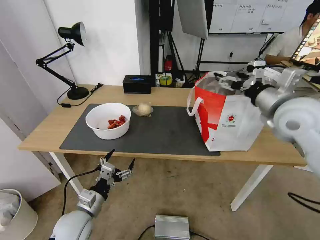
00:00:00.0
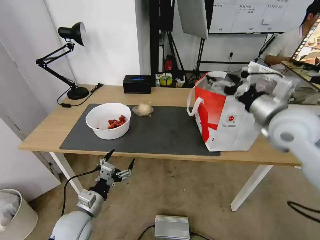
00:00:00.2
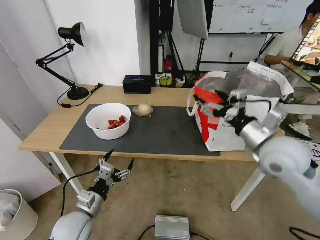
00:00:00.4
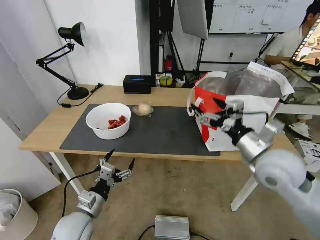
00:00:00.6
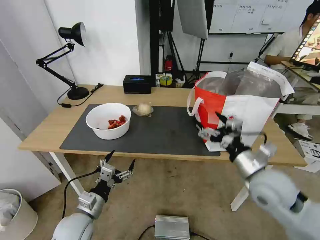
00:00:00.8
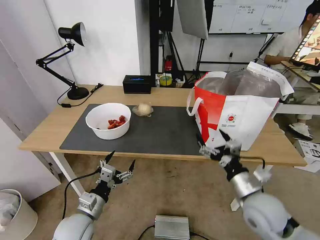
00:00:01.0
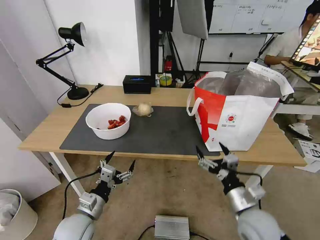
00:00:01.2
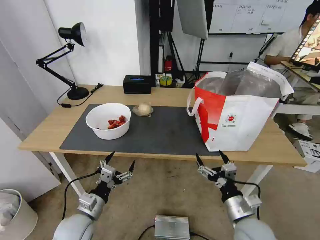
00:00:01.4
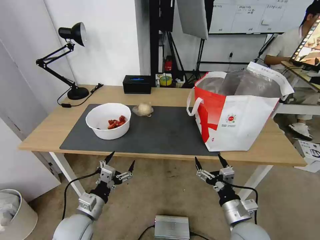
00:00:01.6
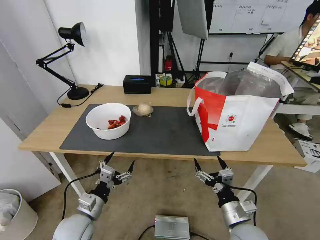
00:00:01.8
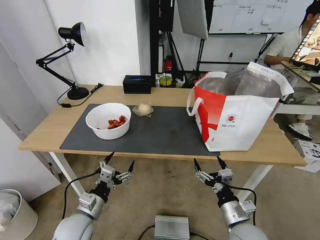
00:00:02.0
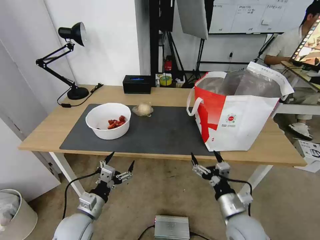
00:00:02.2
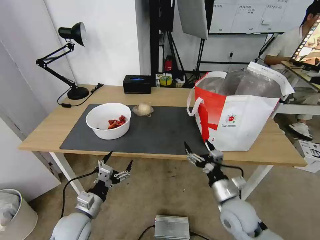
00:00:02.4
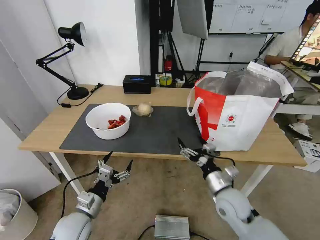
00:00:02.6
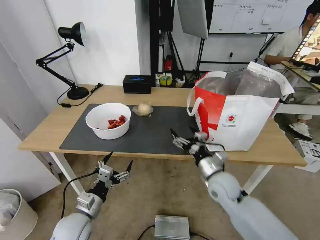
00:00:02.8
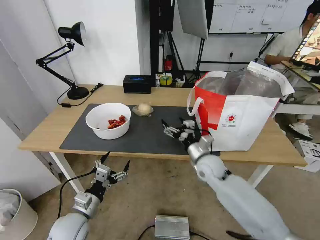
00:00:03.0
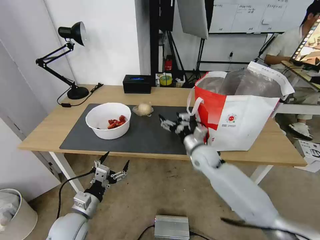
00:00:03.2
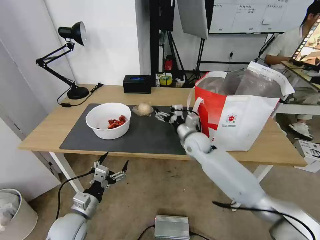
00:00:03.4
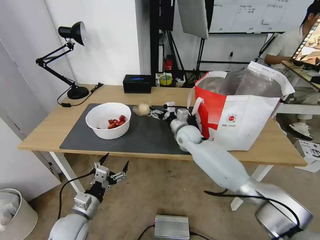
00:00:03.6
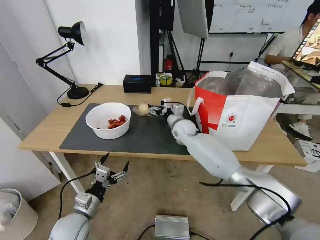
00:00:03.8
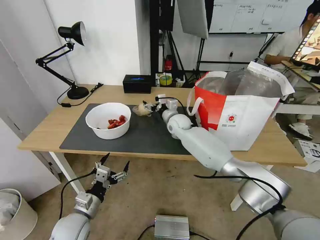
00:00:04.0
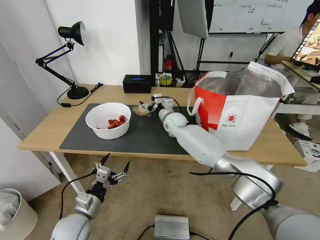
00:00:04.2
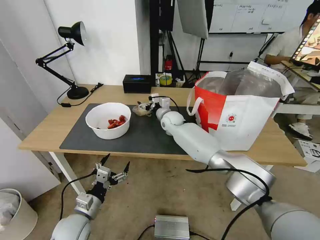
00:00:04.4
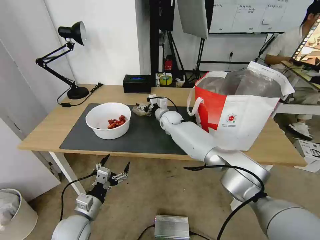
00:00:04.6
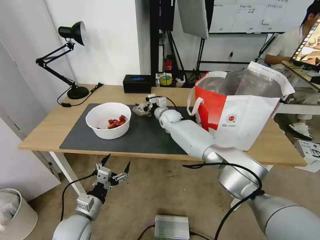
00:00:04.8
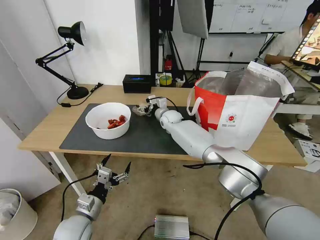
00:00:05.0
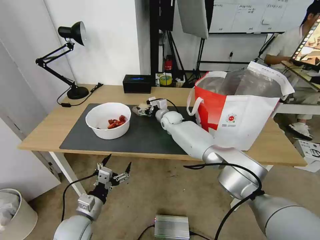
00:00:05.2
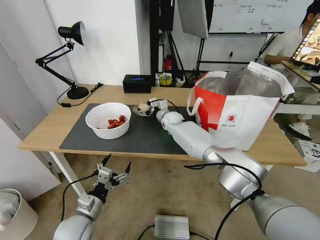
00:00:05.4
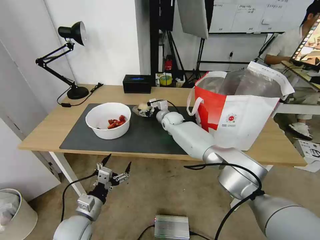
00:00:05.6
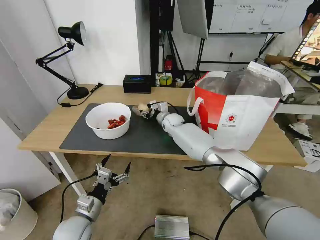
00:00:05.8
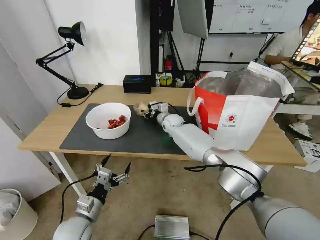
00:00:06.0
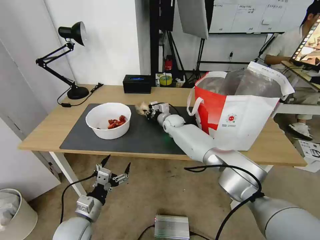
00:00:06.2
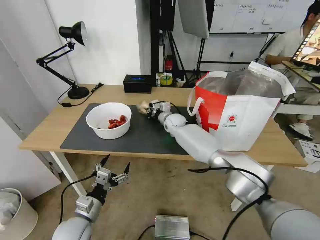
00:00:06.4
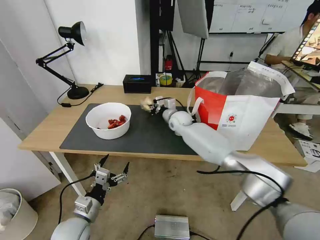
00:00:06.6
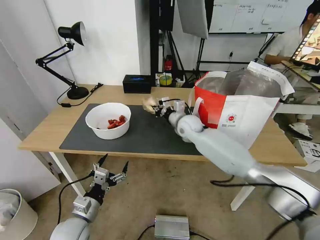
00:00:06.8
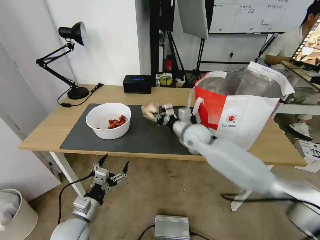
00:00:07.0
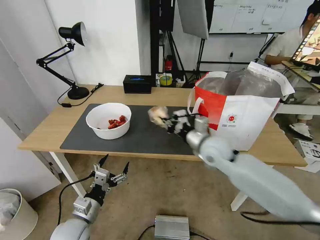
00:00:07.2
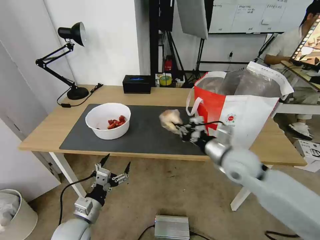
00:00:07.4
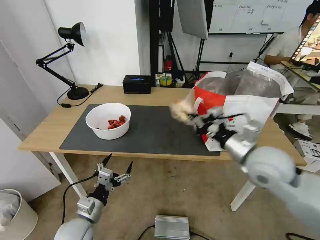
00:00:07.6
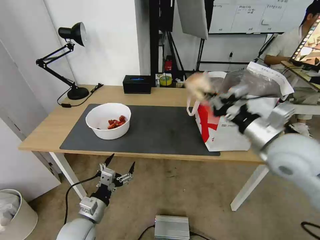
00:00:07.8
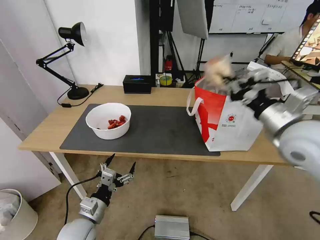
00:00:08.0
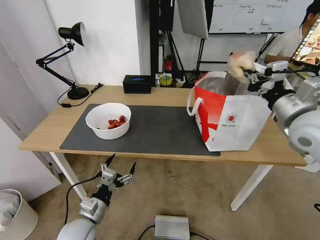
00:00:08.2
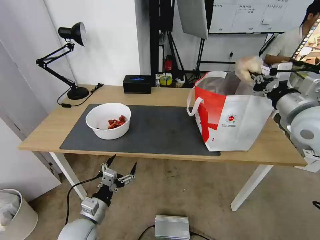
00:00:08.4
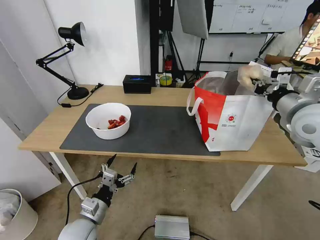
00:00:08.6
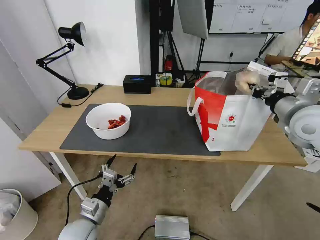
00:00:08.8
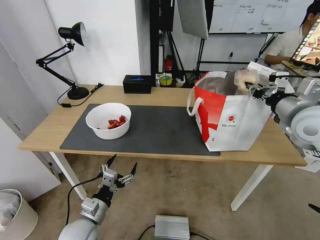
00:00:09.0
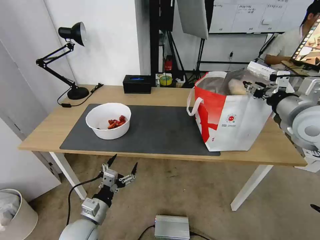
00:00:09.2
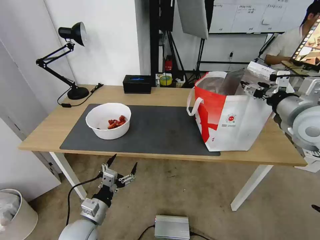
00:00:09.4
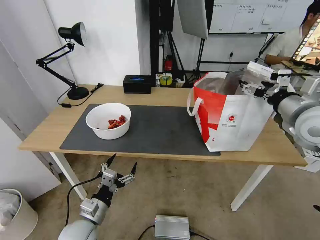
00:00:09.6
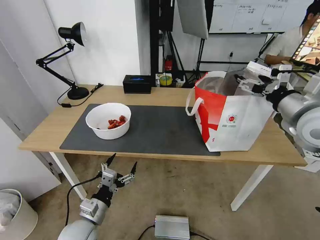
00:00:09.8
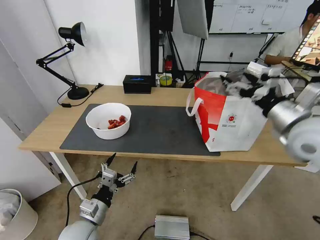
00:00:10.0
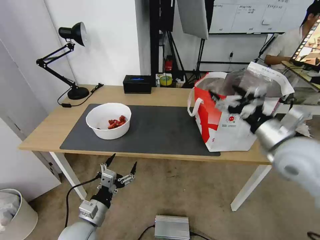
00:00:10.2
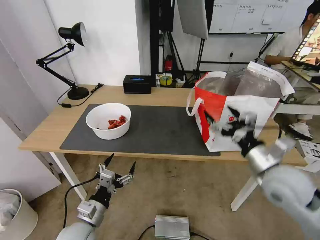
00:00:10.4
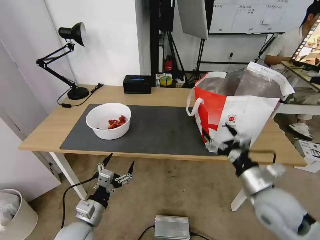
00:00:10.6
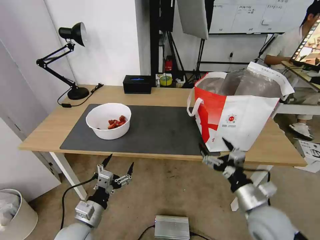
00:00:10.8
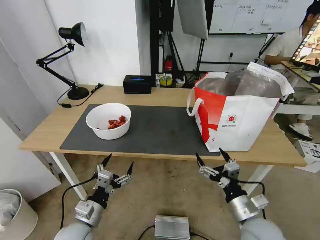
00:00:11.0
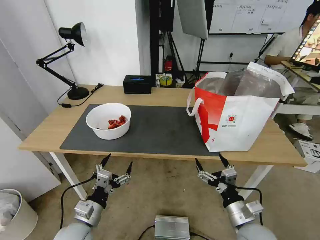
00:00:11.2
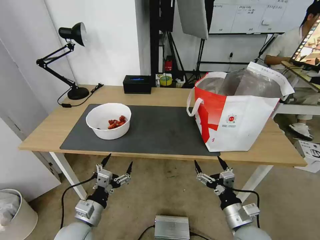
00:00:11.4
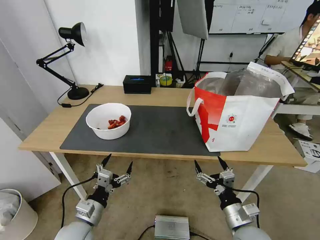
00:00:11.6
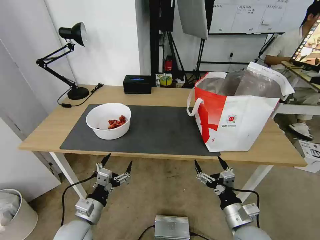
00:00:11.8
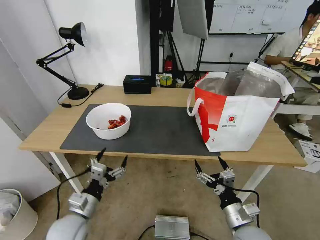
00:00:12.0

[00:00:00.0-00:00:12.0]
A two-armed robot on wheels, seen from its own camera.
Task of the whole recording: Pick up the trash from the table and place it into the takeout bag.
00:00:00.0 to 00:00:01.6: The right gripper travels downward and backward by roughly 35 cm.
00:00:01.6 to 00:00:03.0: The right gripper is displaced forward by roughly 20 cm.
00:00:03.0 to 00:00:04.4: The right gripper heads forward and to the left, covering approximately 25 cm.
00:00:04.4 to 00:00:06.0: The right gripper closes its fingers.
00:00:06.0 to 00:00:07.6: The right gripper goes about 40 cm backward, to the right and upward, and closes its fingers.
00:00:07.6 to 00:00:09.0: The right gripper heads to the right, upward and forward, covering approximately 15 cm.
00:00:09.0 to 00:00:10.4: The right gripper is displaced downward, backward and to the left by some 15 cm, and opens.
00:00:10.4 to 00:00:12.0: The right gripper is displaced downward and backward by some 20 cm.

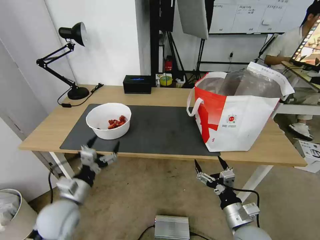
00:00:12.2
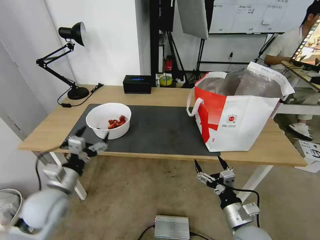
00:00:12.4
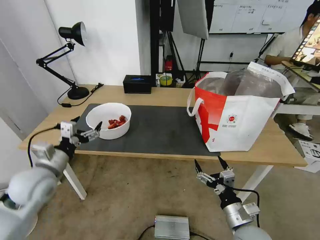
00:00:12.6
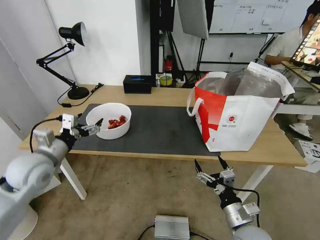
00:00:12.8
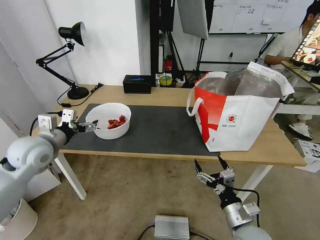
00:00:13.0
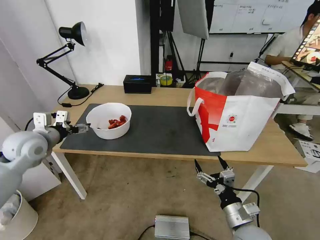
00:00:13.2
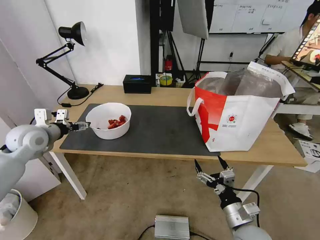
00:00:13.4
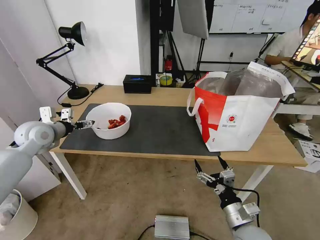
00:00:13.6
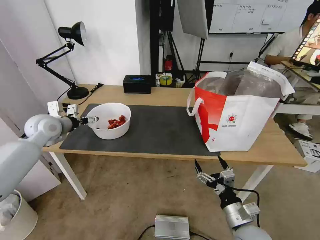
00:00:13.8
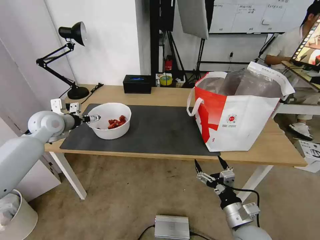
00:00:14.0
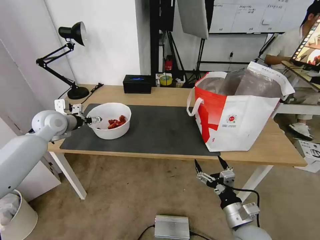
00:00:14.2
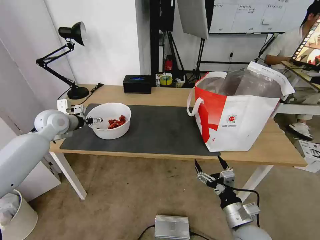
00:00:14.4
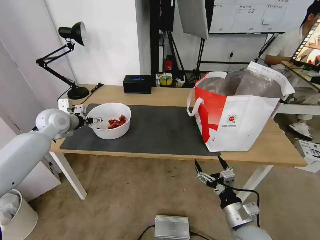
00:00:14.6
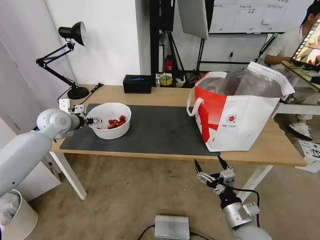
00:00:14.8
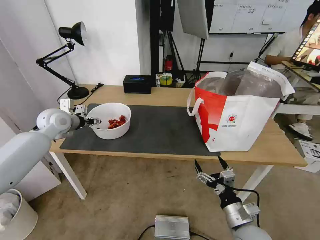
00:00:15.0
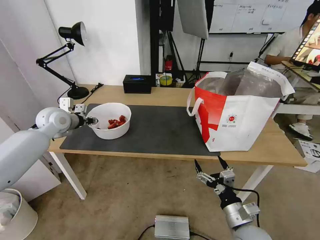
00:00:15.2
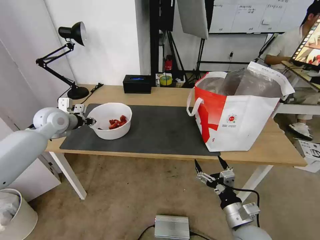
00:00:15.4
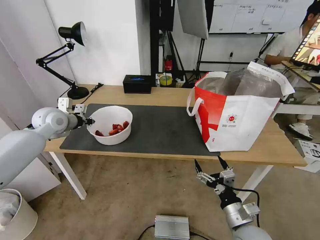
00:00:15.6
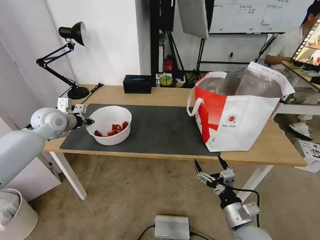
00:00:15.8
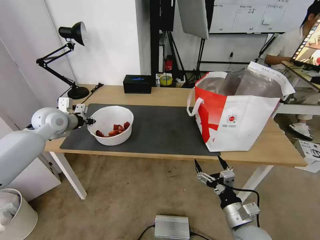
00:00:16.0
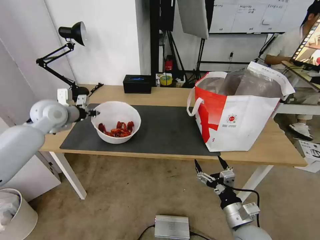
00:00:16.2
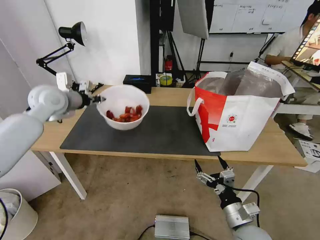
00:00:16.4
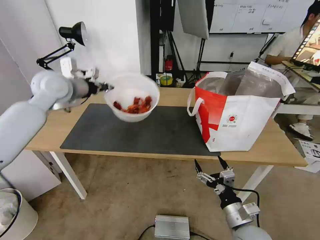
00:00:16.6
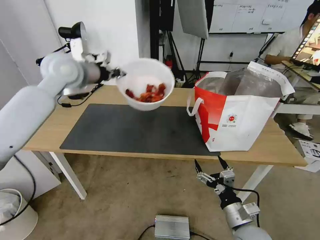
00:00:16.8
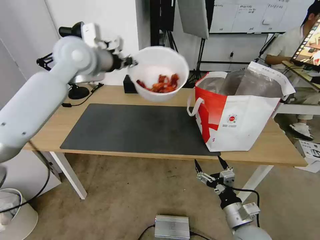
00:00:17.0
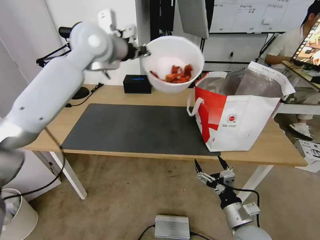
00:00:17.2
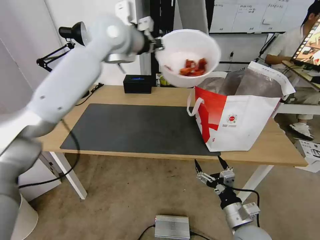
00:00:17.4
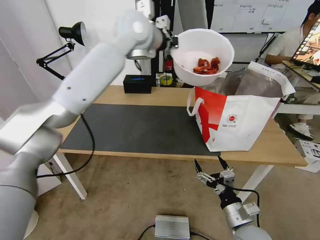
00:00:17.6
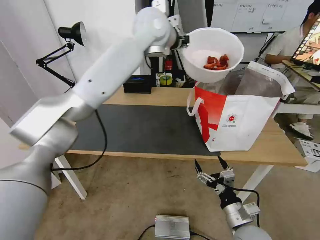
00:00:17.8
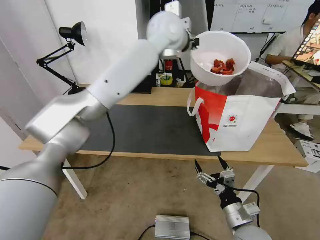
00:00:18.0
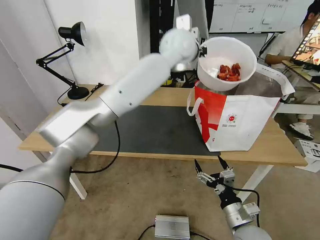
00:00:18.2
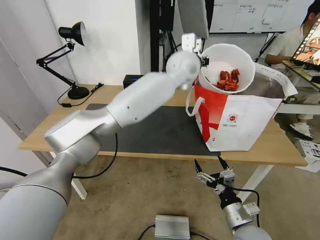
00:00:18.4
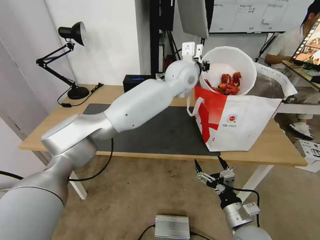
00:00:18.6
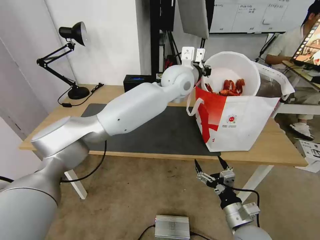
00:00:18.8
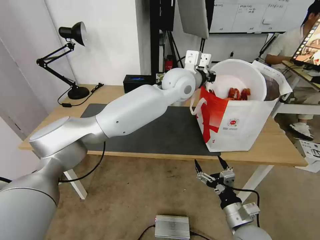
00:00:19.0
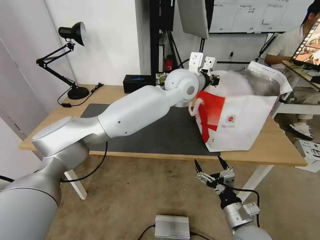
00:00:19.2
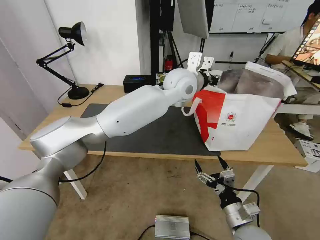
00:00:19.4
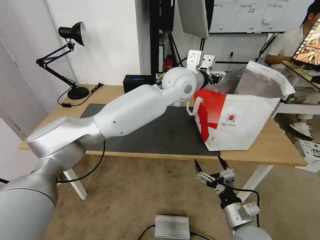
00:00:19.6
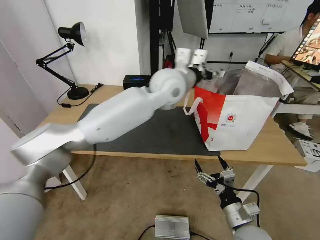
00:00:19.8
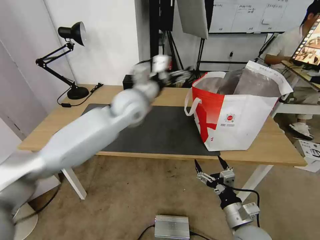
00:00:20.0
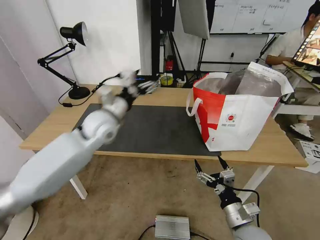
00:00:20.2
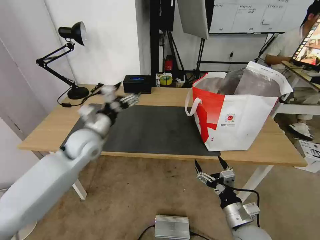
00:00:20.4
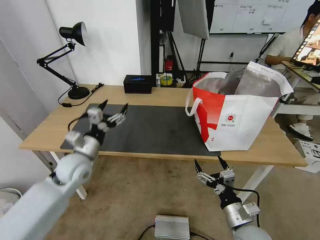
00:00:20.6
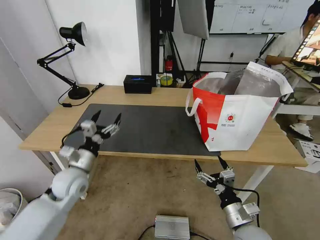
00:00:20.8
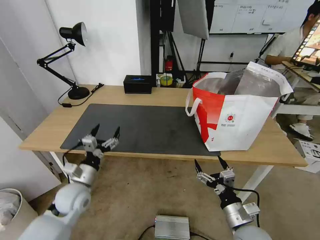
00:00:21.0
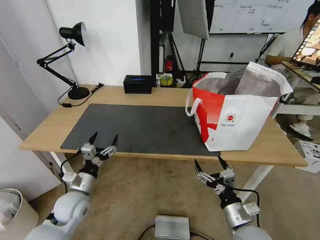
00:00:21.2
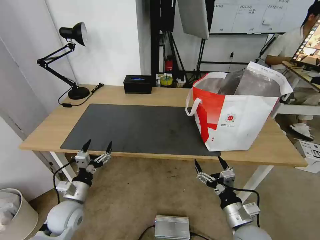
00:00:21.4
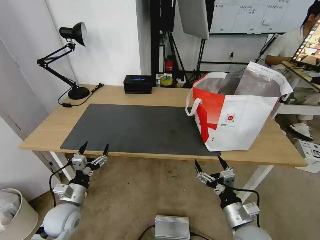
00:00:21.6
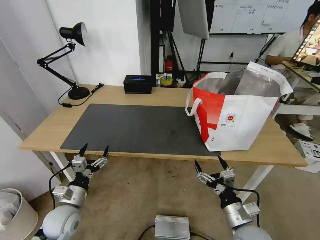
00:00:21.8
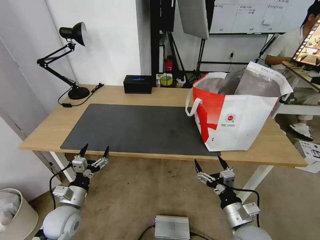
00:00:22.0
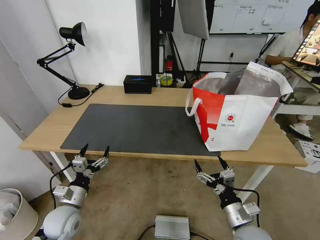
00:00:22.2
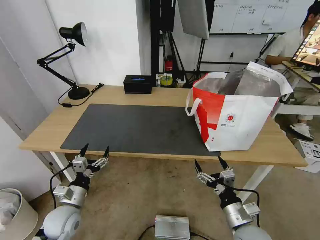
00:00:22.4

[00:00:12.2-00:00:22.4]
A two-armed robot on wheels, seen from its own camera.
Task of the whole recording: Pick up the trash from the table and place it into the takeout bag.
00:00:12.2 to 00:00:13.6: The left gripper goes approximately 25 cm forward, upward and to the left.
00:00:13.6 to 00:00:15.2: The left gripper goes about 5 cm forward, and closes up.
00:00:15.2 to 00:00:16.6: The left gripper shifts roughly 15 cm upward and to the right, and closes up.
00:00:16.6 to 00:00:18.0: The left gripper goes about 30 cm to the right.
00:00:18.0 to 00:00:19.4: The left gripper heads downward and backward, covering roughly 15 cm, and opens up.
00:00:19.4 to 00:00:21.0: The left gripper travels to the left, downward and backward by roughly 50 cm, and opens up.
00:00:21.0 to 00:00:22.4: The left gripper travels backward by approximately 5 cm.
